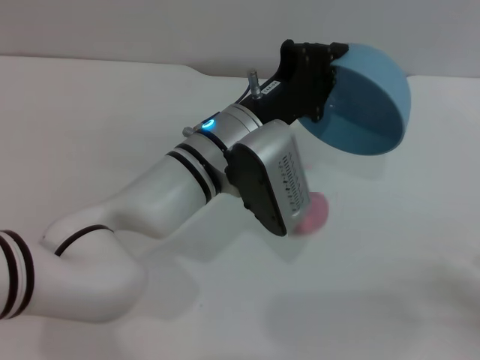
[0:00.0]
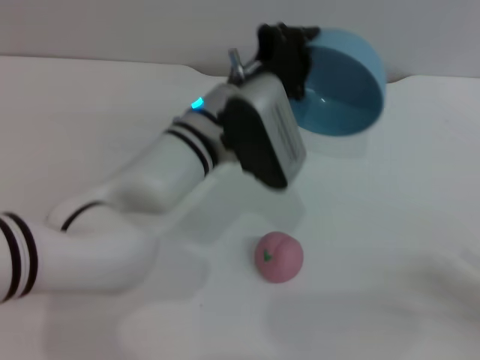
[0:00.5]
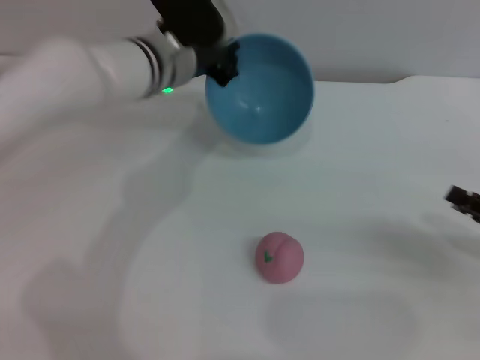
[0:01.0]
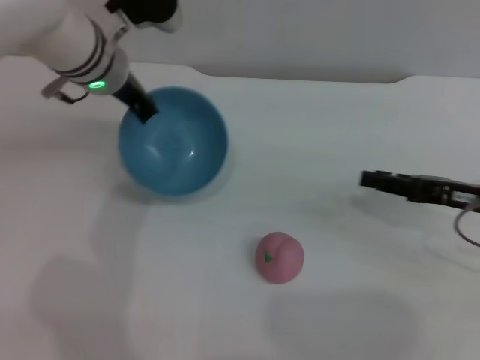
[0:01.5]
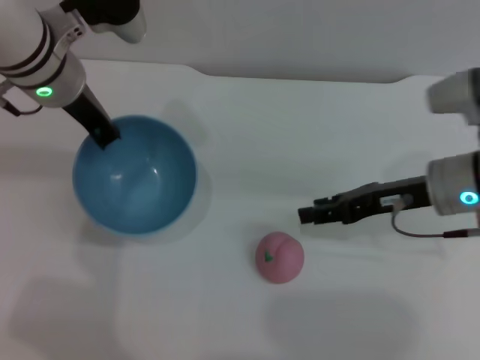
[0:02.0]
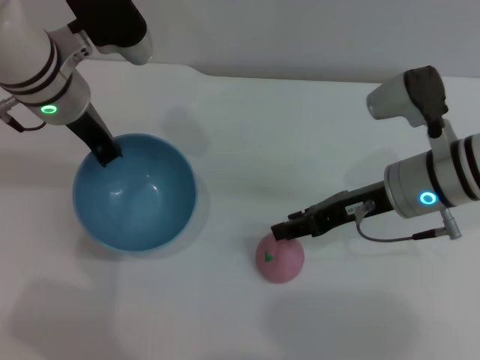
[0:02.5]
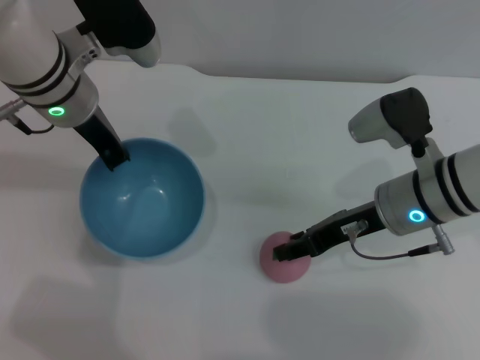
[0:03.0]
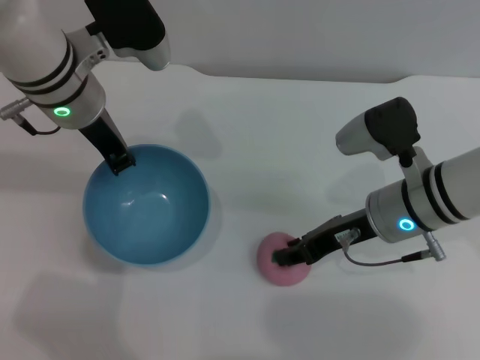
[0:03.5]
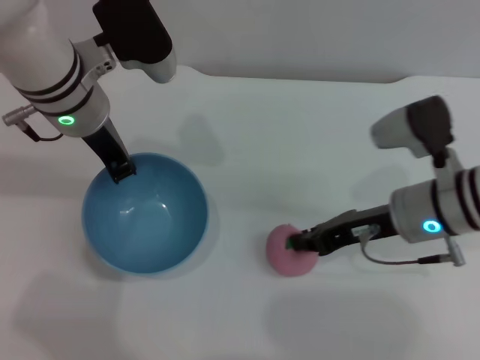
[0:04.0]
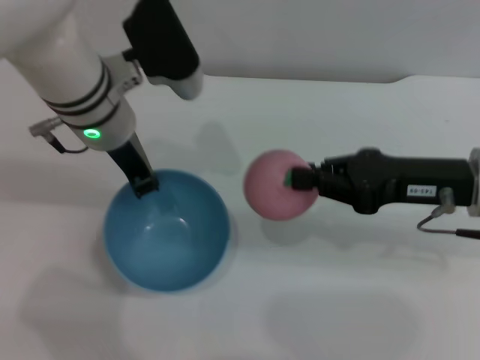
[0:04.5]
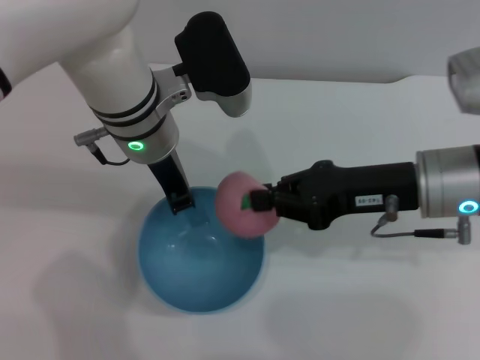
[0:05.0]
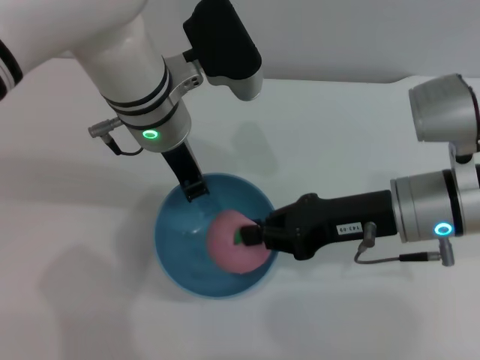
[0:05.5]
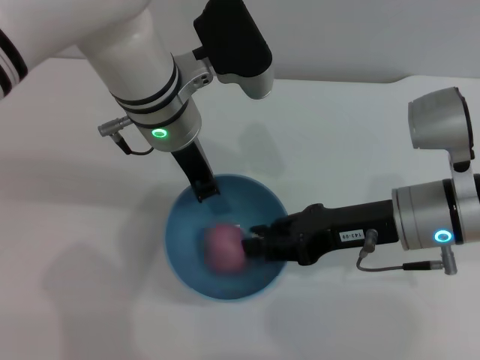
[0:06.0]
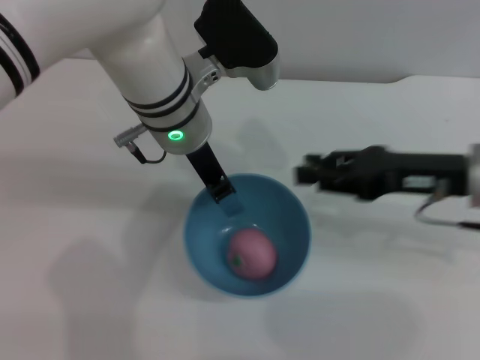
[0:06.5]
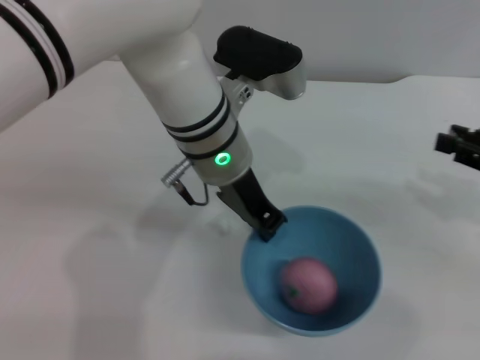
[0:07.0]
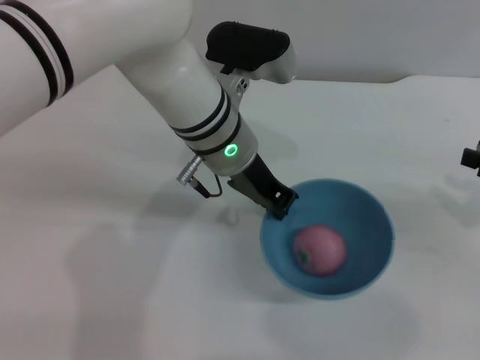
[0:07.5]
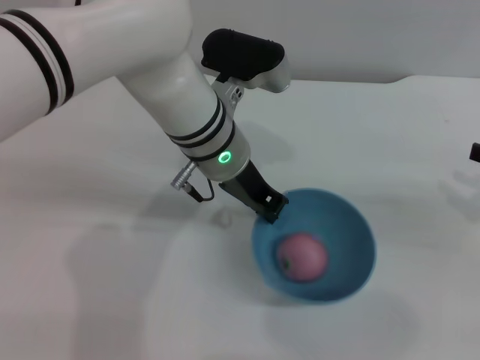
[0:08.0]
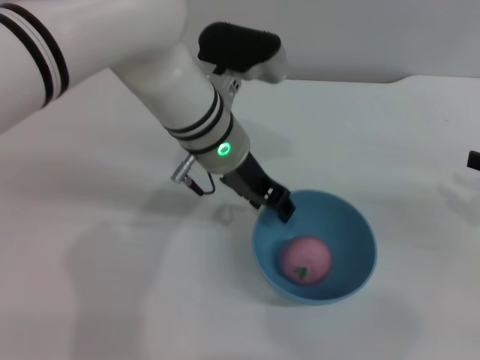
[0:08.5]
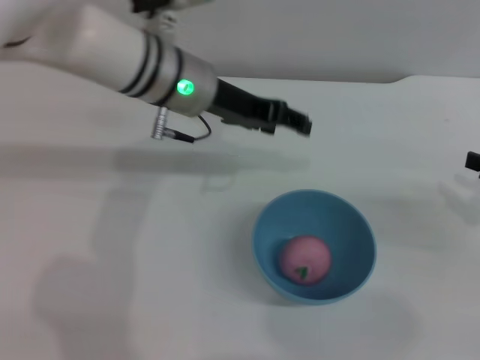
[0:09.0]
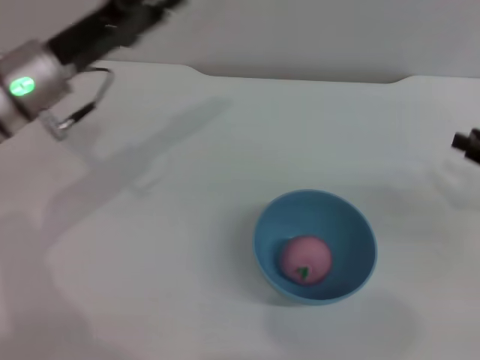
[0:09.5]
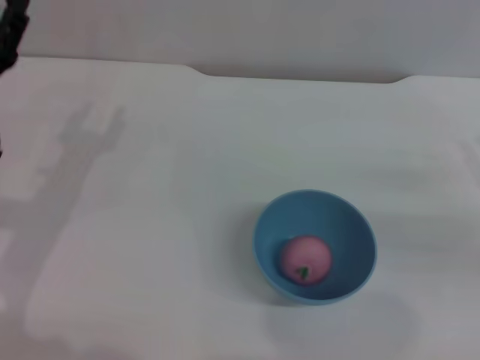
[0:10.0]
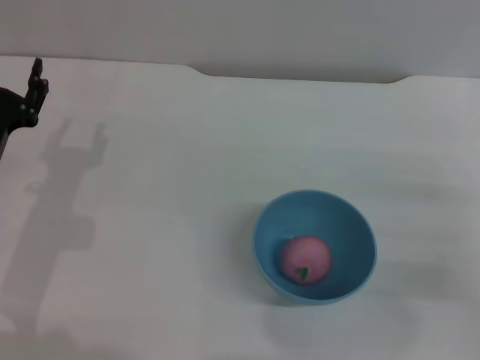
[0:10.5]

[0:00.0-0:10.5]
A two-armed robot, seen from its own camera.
Task of the whole recording: put the peach into the blue bowl and pour it out repeatedly.
Step, 0:01.0 to 0:04.5: Pick up the peach with the right gripper.
Step, 0:05.0 to 0:06.5: Place the peach into the bowl.
Step, 0:07.0 to 0:08.5: Place the bowl on the table.
0:00.0 to 0:02.0: The right gripper goes some 25 cm to the left and forward. Meanwhile the left gripper heads to the left, upward and forward, covering some 20 cm.
0:02.0 to 0:04.0: The right gripper closes.
0:04.0 to 0:06.5: The right gripper shifts about 5 cm upward, and opens its fingers. The left gripper goes some 10 cm to the right.
0:06.5 to 0:08.5: The right gripper moves to the right, about 15 cm.
0:08.5 to 0:10.5: The right gripper travels downward by some 5 cm; the left gripper moves to the left and backward, some 25 cm, and opens up.
